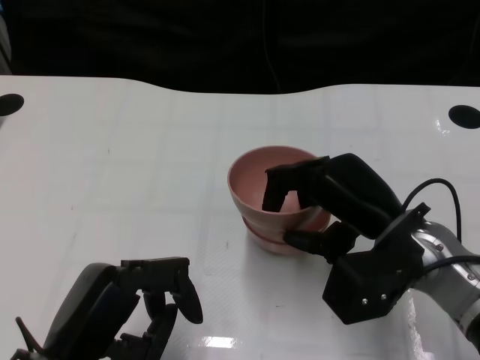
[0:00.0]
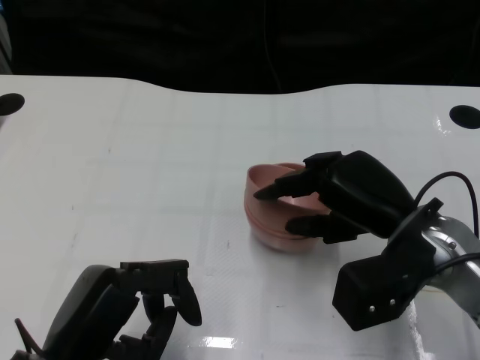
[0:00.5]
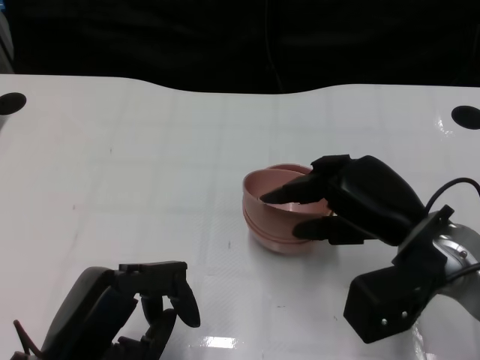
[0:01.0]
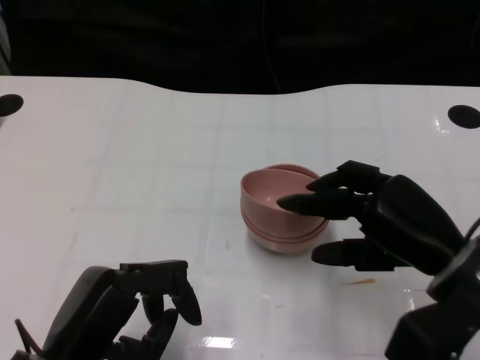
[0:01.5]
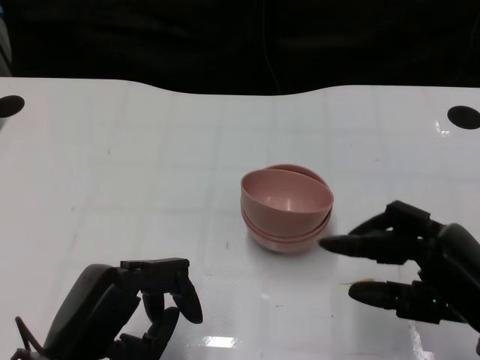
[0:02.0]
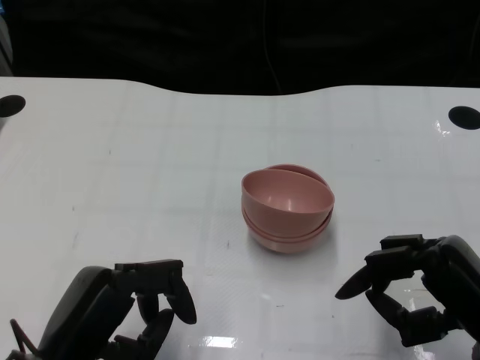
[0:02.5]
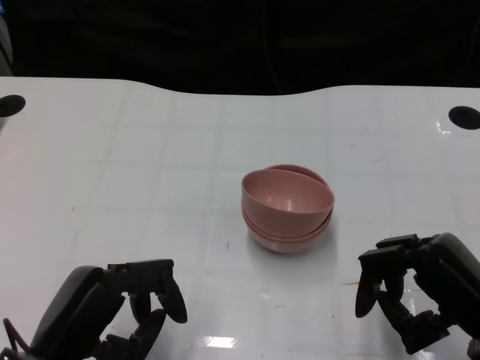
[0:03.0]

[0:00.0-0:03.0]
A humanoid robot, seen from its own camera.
Task of the whole recording: Pick up the bowl on one side of the table and place it on top of the middle bowl, then pick up the bowl on the other side of the table and place it on top of the middle bowls.
0:00.0 to 0:01.5: The right hand ends up roughly 5 cm from where it was.
0:01.5 to 0:03.0: The right hand goes roughly 5 cm backward.

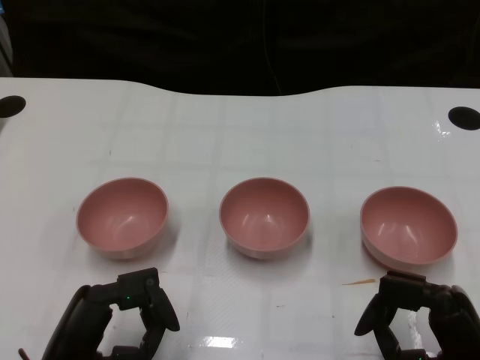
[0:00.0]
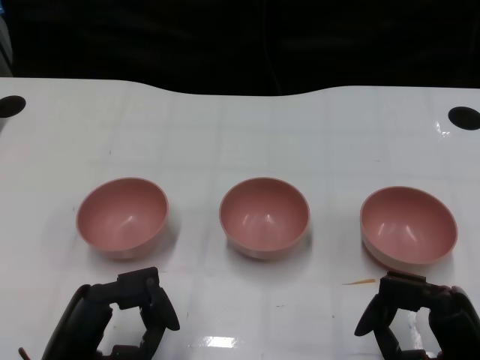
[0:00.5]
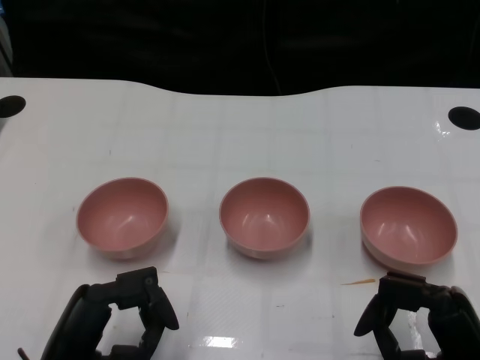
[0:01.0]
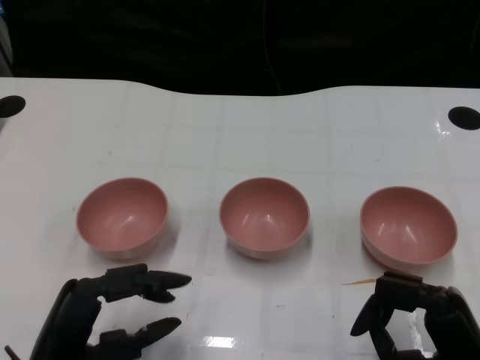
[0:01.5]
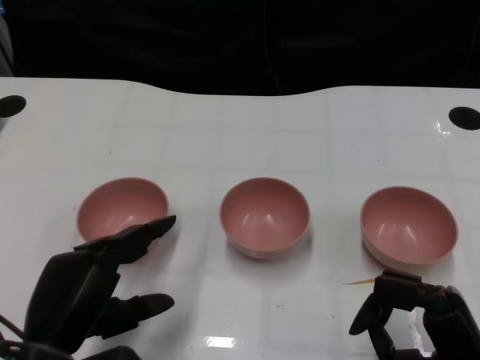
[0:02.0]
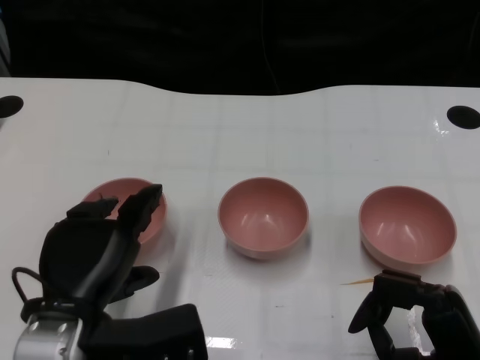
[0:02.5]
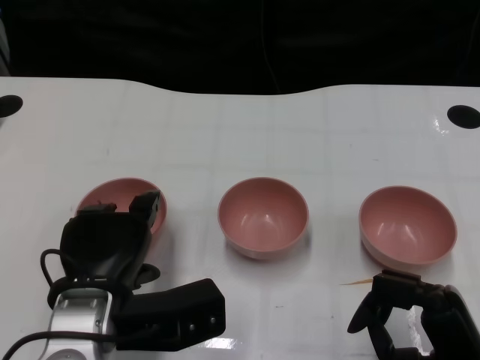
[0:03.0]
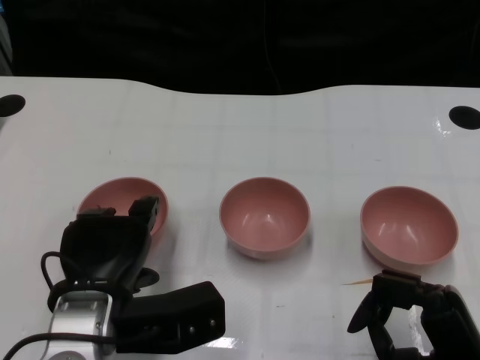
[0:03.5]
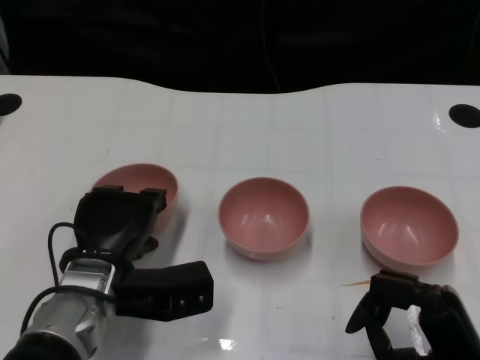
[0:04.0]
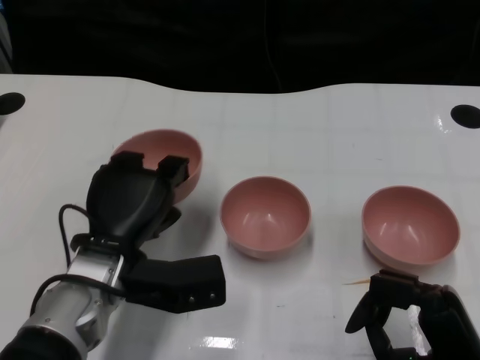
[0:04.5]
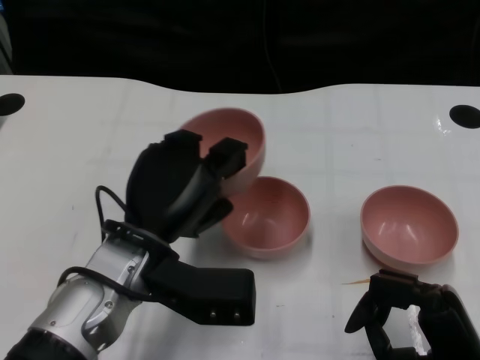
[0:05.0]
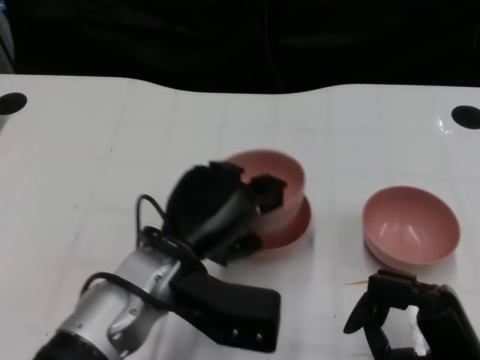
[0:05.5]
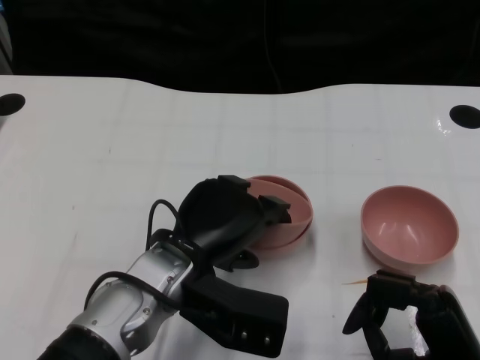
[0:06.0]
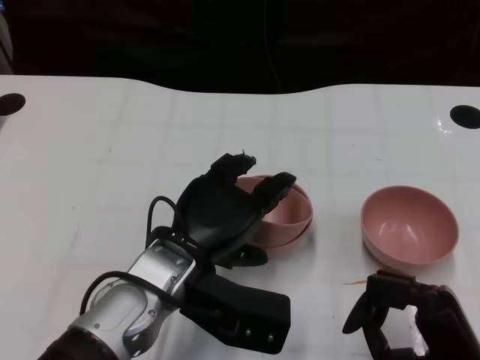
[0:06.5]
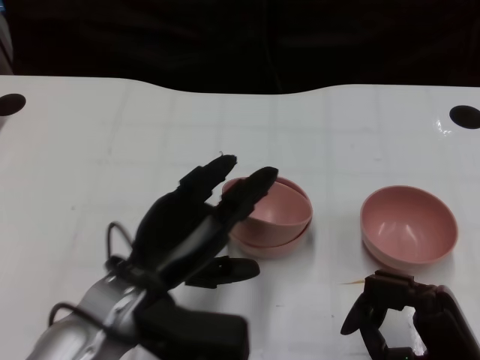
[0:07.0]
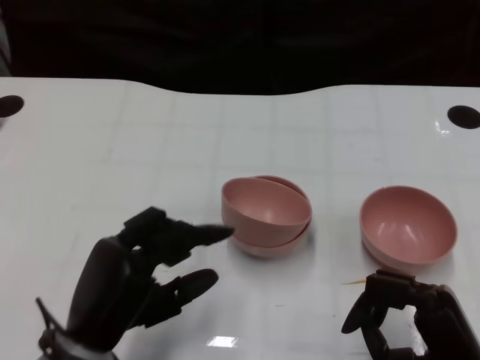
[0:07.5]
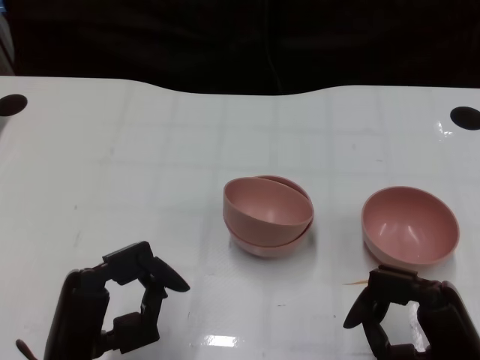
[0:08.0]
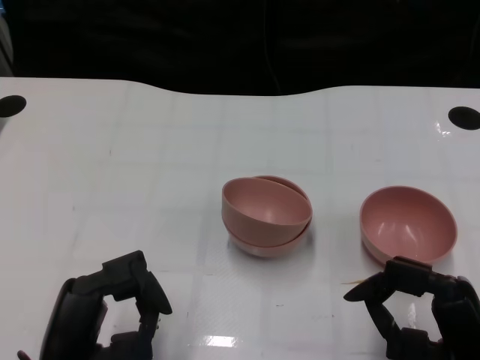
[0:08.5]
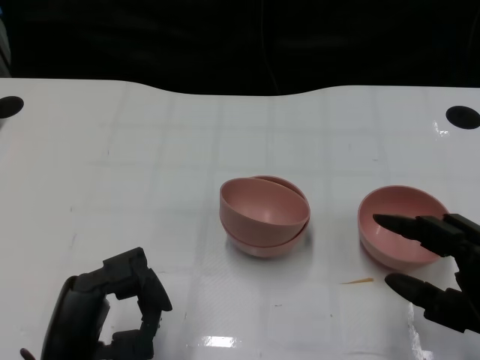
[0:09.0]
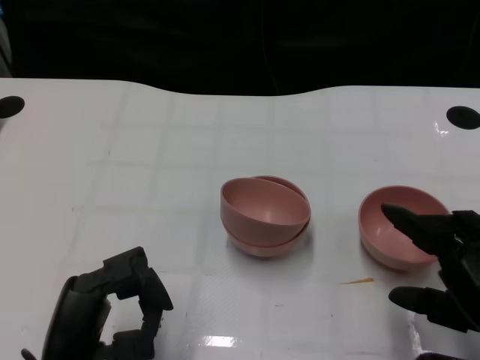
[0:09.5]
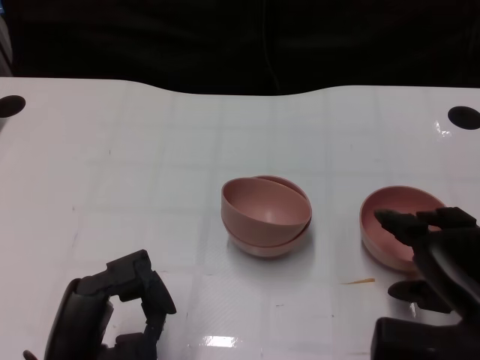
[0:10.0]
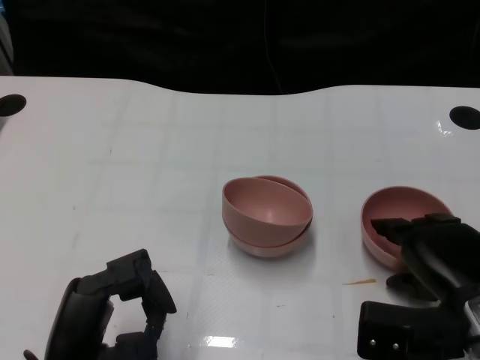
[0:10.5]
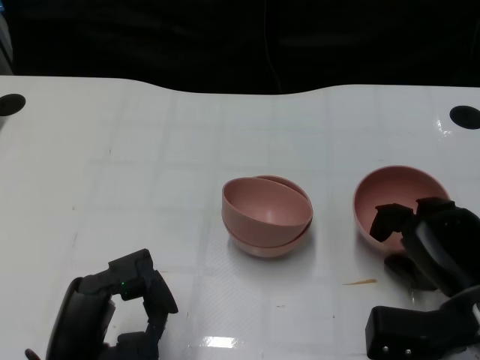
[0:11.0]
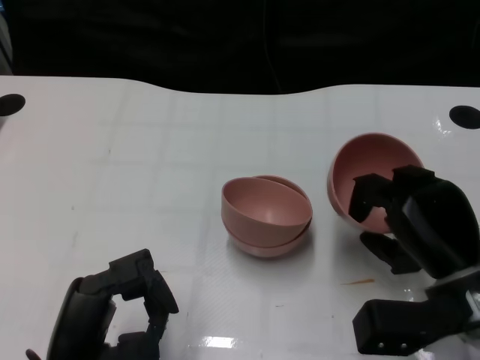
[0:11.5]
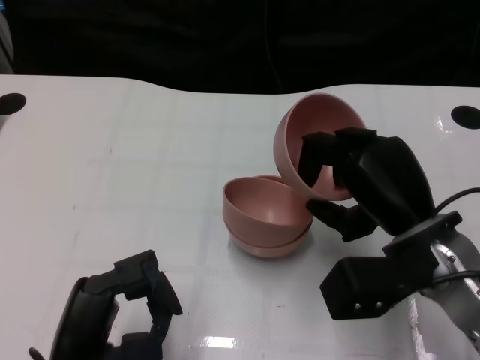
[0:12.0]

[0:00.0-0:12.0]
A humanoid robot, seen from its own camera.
Task of the whole recording: Pick up the bowl on one side of the table and place it on top of the middle bowl, then pick up the bowl on the other side of the table and place it on top of the middle bowls.
Step, 0:01.5 to 0:03.5: Grasp the bowl on the left with the left gripper.
Step, 0:04.0 to 0:07.0: Place the bowl on the left onto the bowl in the middle with left gripper.
Step, 0:07.5 to 0:11.0: Grasp the bowl on the right with the right gripper.
0:02.0 to 0:04.0: The left hand is displaced forward by about 10 cm.
0:04.0 to 0:06.0: The left hand heads to the right, covering roughly 5 cm.
0:06.0 to 0:08.0: The left hand goes approximately 15 cm to the left and backward.
0:08.0 to 0:10.0: The right hand shifts by some 5 cm.
0:10.0 to 0:12.0: The right hand is displaced forward and to the left by roughly 10 cm.

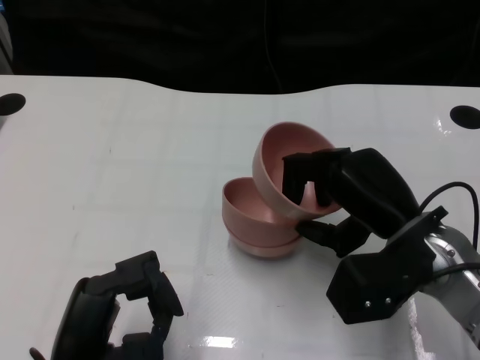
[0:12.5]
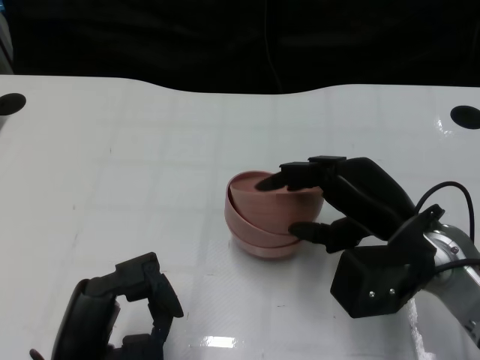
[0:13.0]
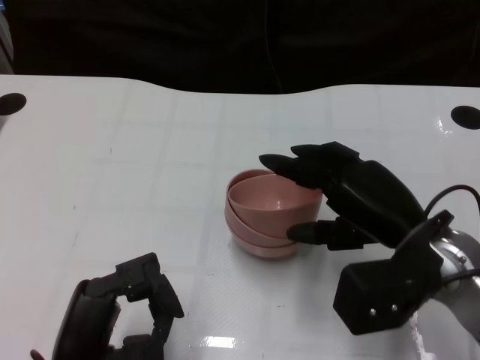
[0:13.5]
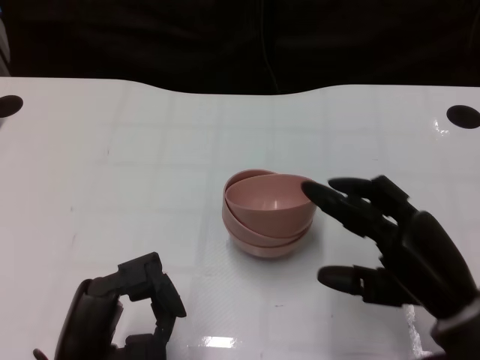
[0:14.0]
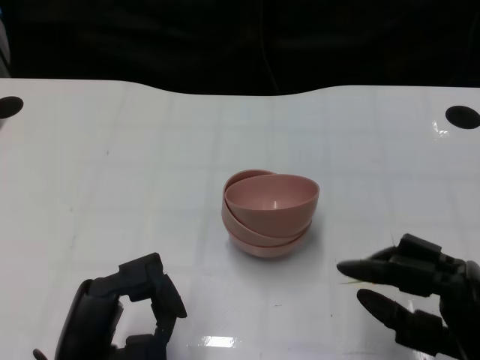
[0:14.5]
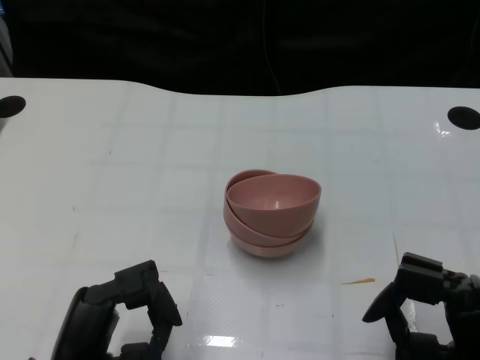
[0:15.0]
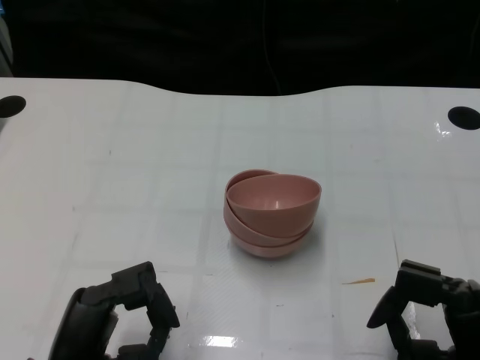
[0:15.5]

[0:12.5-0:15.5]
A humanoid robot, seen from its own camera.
Task of the whole recording: Pick up the bowl on one side of the table and place it on top of the middle bowl, then pick up the bowl on the other side of the table and place it on top of the middle bowls.
0:12.5 to 0:14.0: The right hand moves backward, about 5 cm.
0:14.0 to 0:15.5: The right hand heads backward, covering roughly 5 cm.

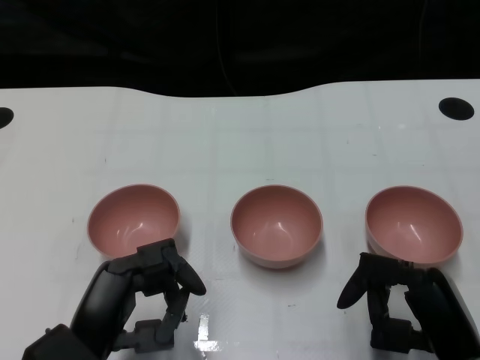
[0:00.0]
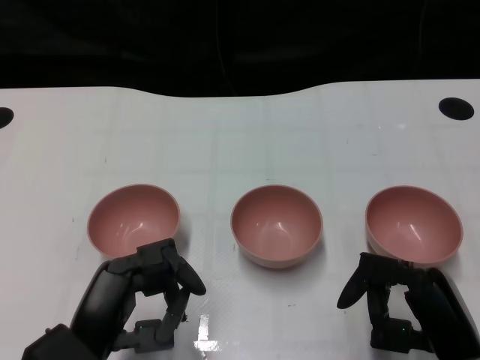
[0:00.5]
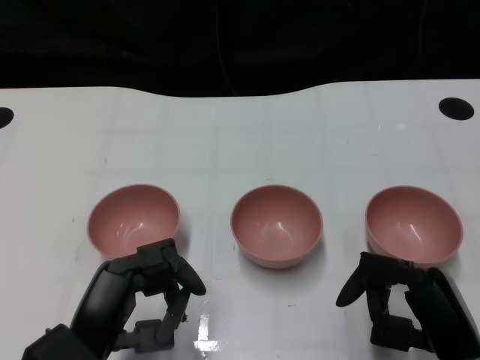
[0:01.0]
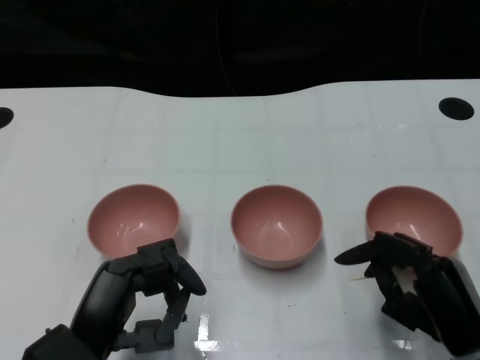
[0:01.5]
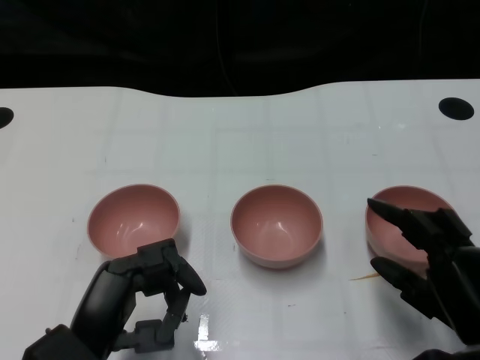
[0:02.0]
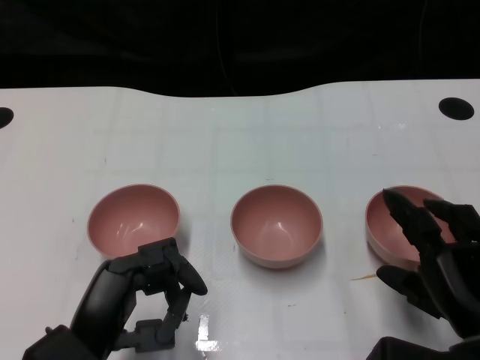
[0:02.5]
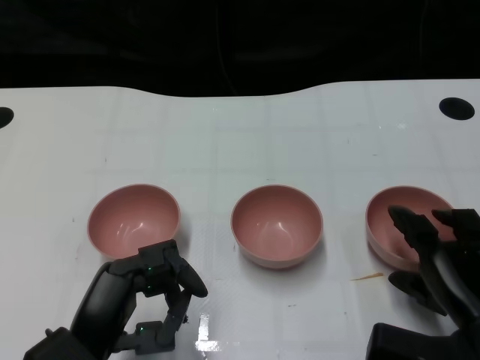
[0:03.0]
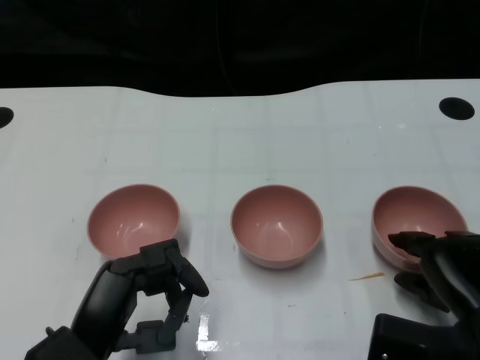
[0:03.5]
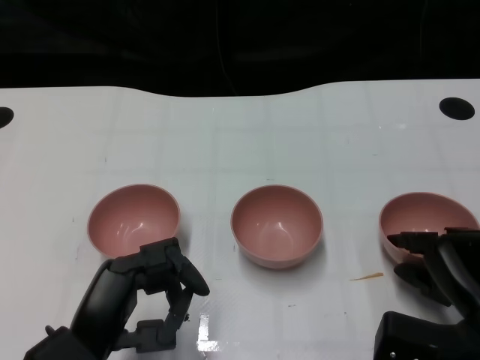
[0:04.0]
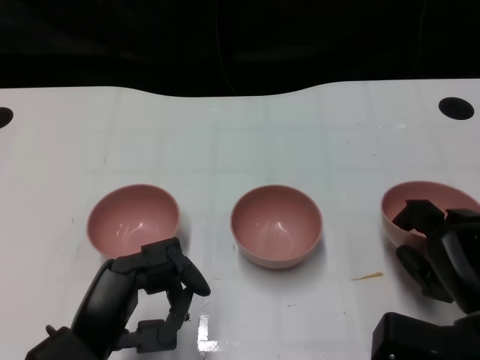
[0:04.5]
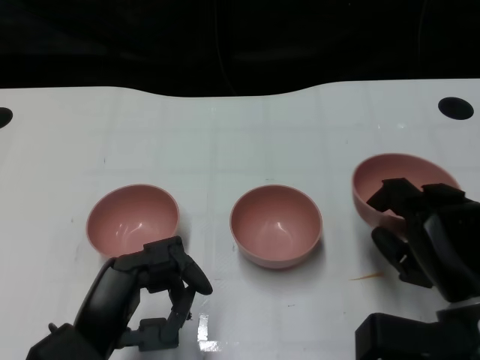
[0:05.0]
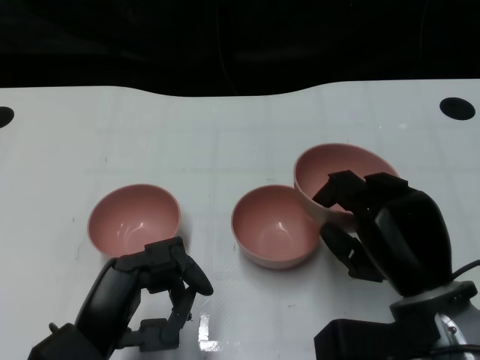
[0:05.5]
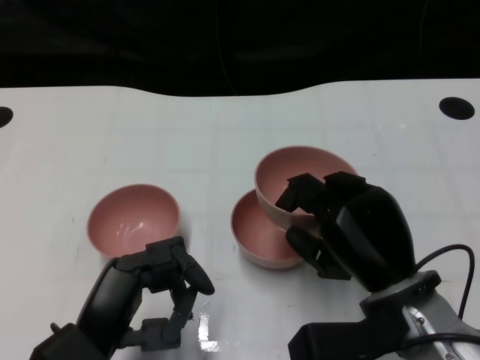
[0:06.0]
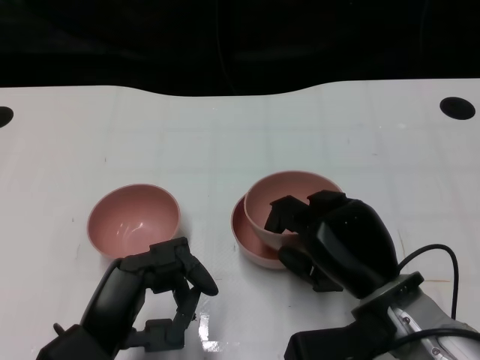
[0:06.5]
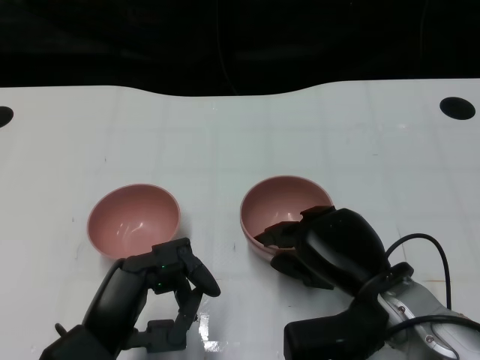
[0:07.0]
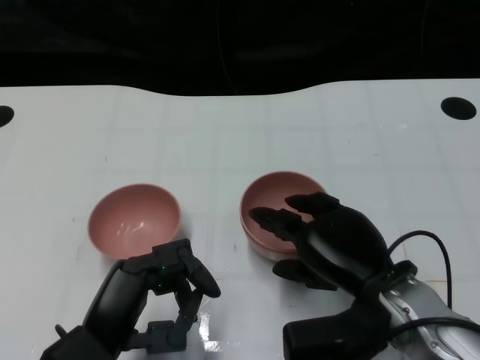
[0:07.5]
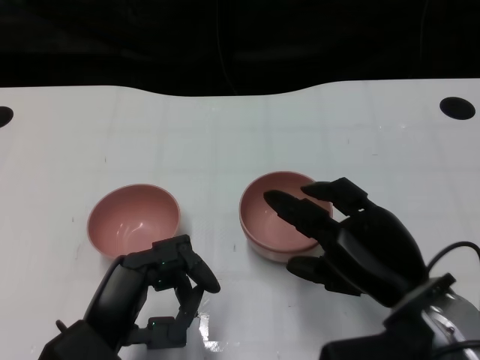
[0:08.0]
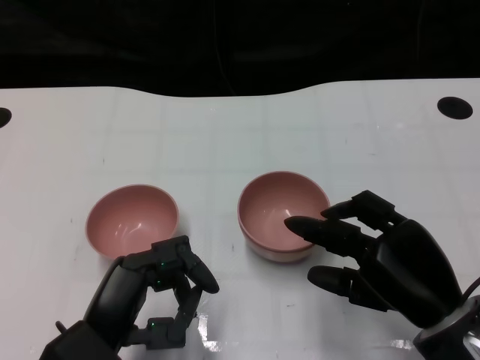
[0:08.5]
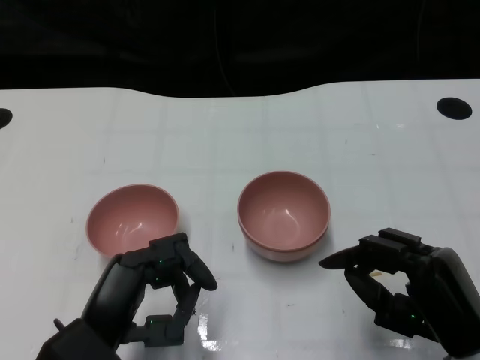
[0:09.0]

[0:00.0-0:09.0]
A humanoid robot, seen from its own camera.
Task of the whole recording: Pick up the bowl on one side of the table and place it on top of the middle bowl, then pick up the bowl on the other side of the table and place it on top of the middle bowls.
Step, 0:01.5 to 0:04.0: Grasp the bowl on the right with the right gripper.
Step, 0:04.5 to 0:08.0: Place the bowl on the right onto the bowl in the middle with right gripper.
0:04.5 to 0:07.0: The right hand travels to the left by some 10 cm.
0:07.0 to 0:09.0: The right hand moves to the right and backward, some 10 cm.
